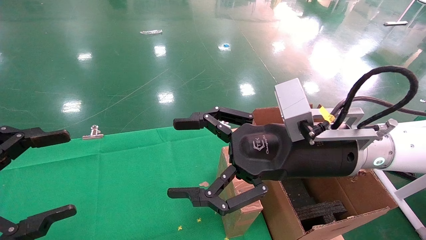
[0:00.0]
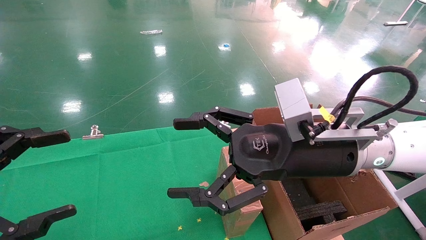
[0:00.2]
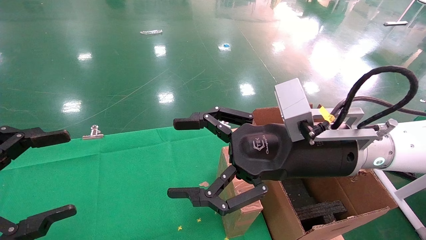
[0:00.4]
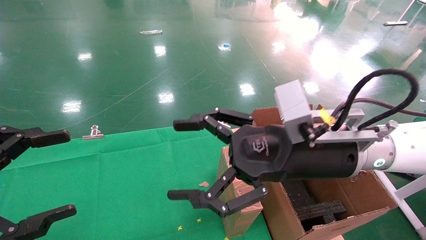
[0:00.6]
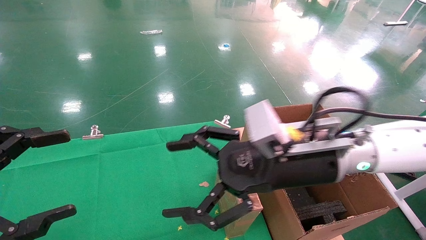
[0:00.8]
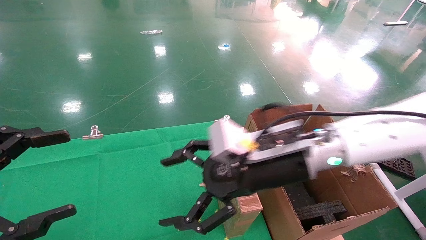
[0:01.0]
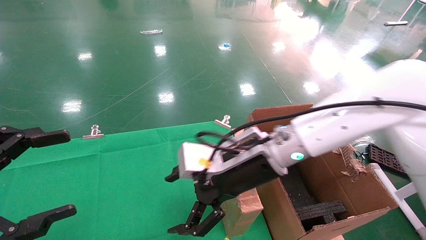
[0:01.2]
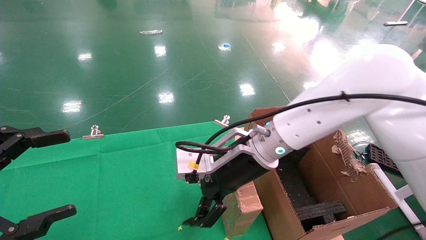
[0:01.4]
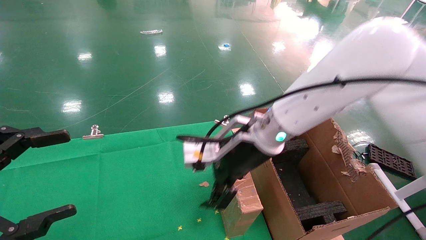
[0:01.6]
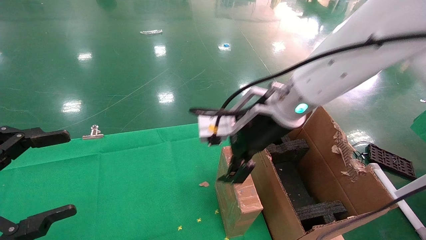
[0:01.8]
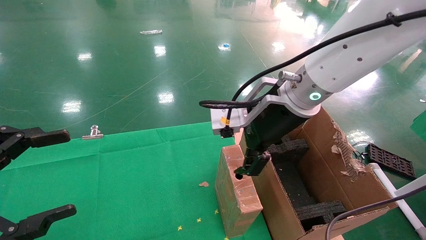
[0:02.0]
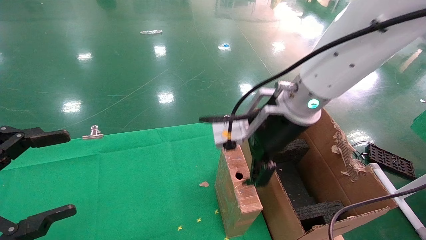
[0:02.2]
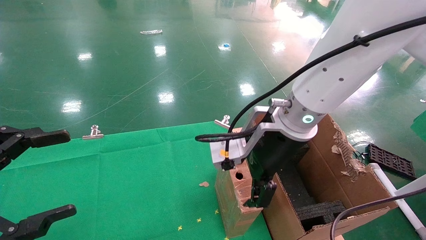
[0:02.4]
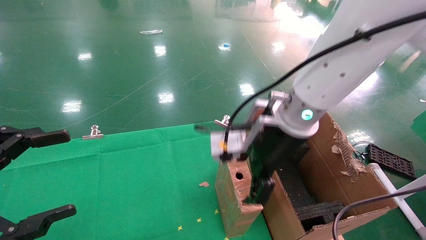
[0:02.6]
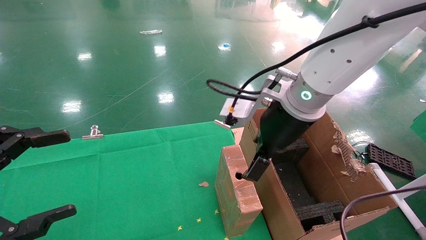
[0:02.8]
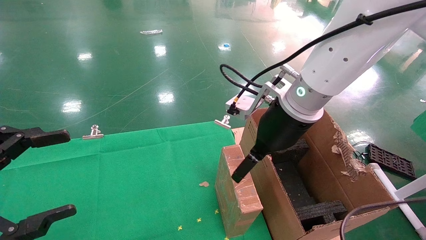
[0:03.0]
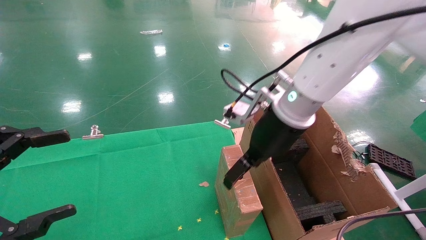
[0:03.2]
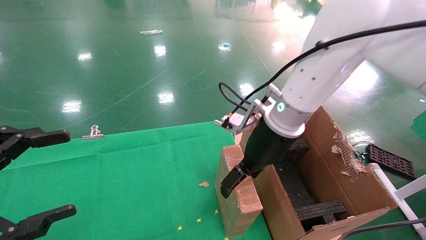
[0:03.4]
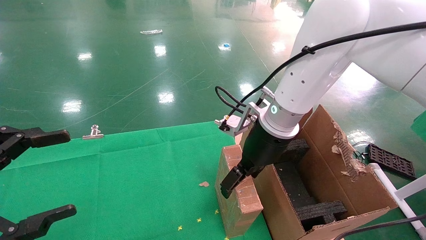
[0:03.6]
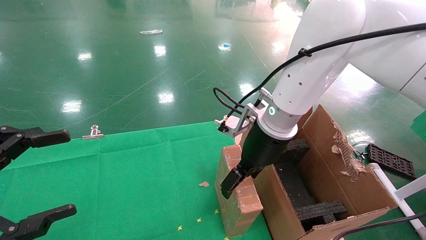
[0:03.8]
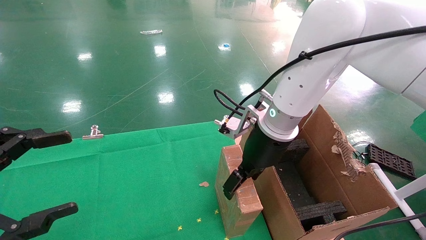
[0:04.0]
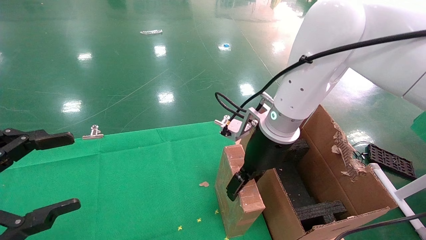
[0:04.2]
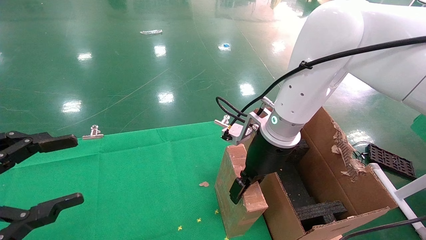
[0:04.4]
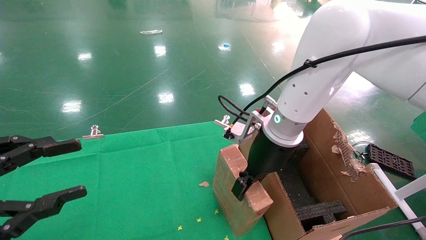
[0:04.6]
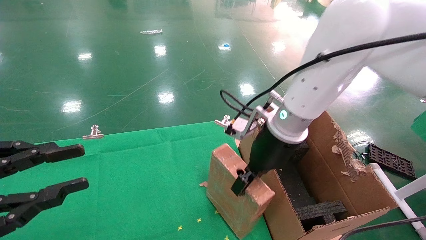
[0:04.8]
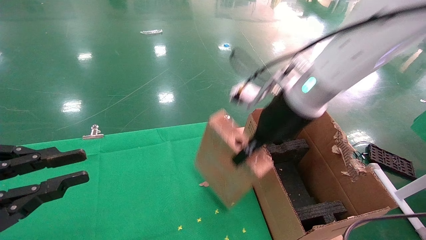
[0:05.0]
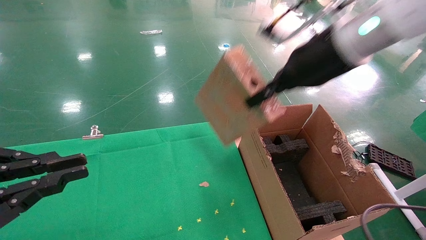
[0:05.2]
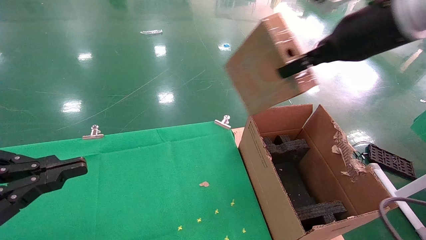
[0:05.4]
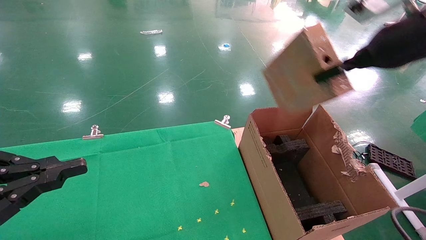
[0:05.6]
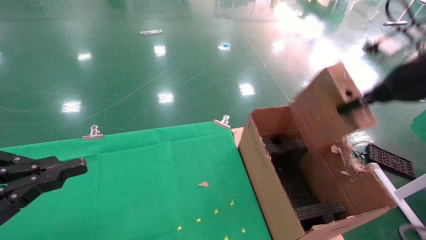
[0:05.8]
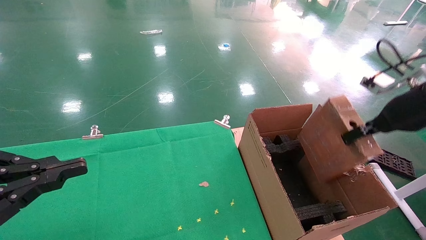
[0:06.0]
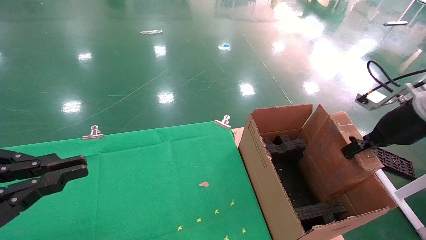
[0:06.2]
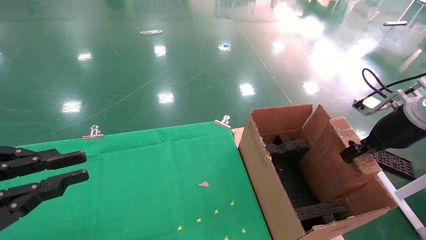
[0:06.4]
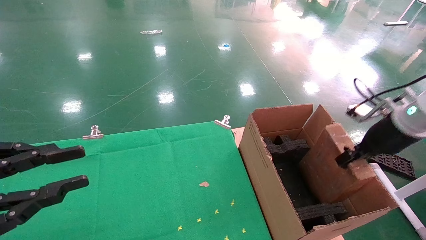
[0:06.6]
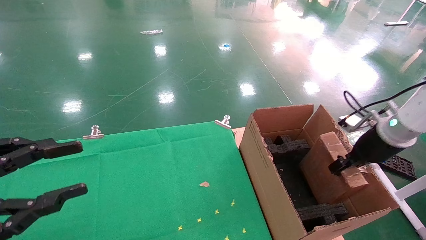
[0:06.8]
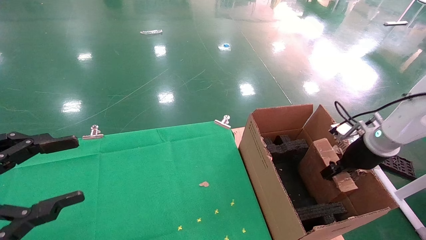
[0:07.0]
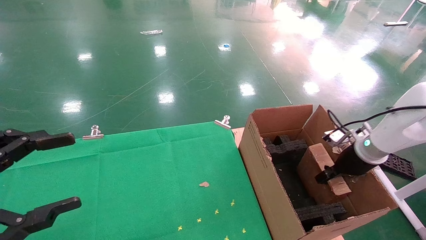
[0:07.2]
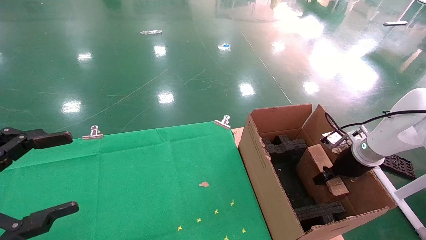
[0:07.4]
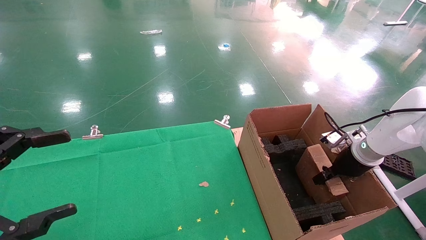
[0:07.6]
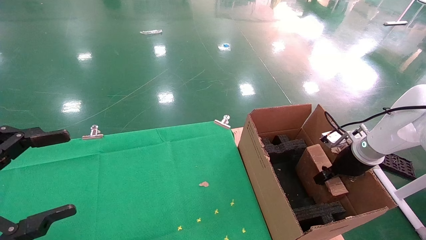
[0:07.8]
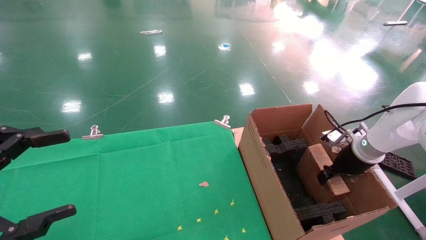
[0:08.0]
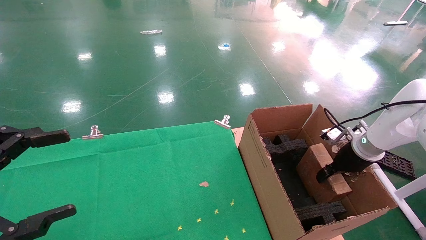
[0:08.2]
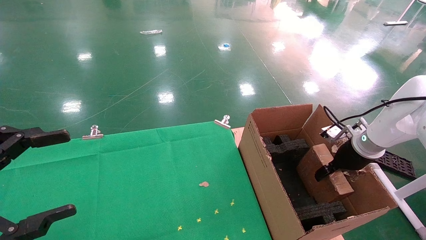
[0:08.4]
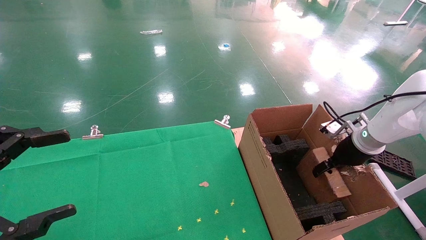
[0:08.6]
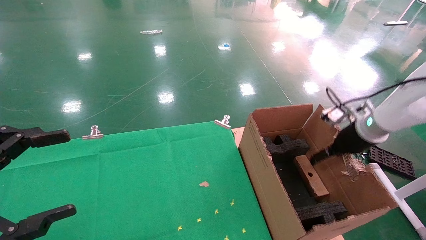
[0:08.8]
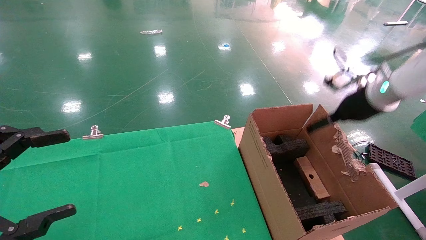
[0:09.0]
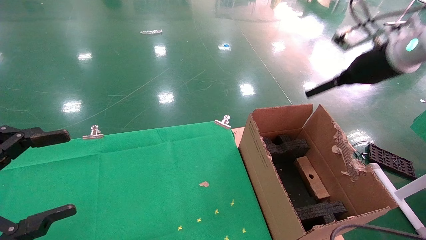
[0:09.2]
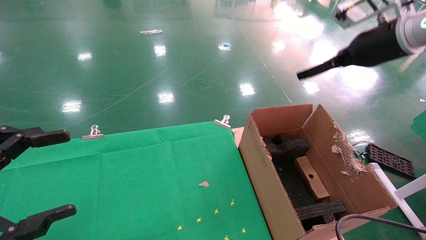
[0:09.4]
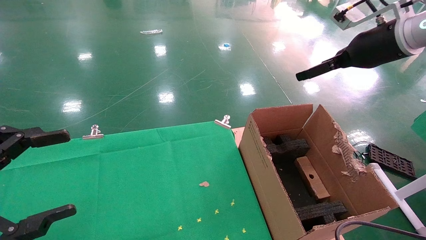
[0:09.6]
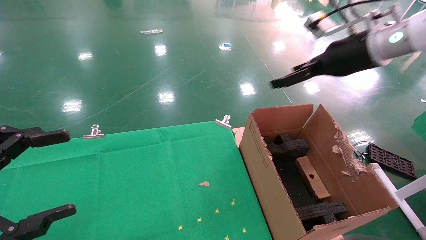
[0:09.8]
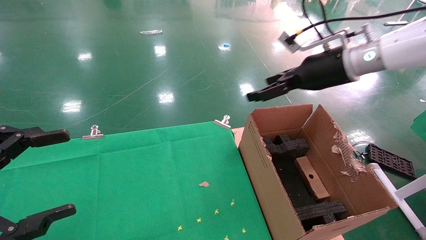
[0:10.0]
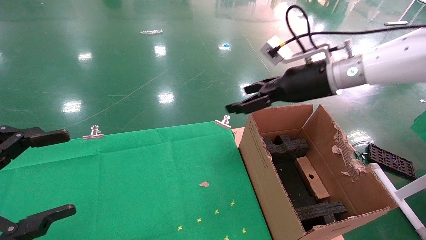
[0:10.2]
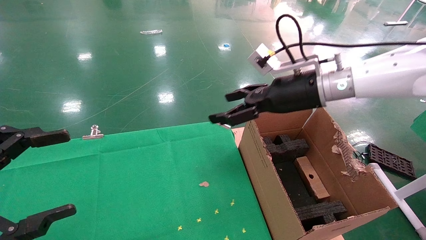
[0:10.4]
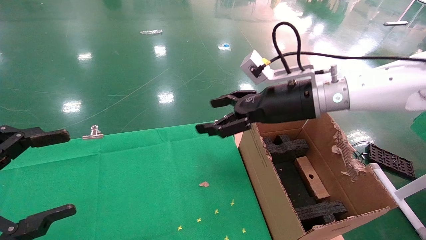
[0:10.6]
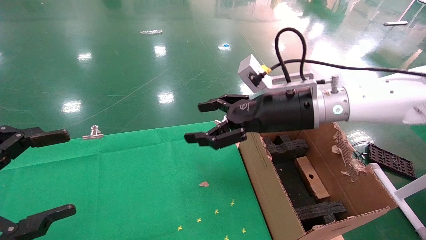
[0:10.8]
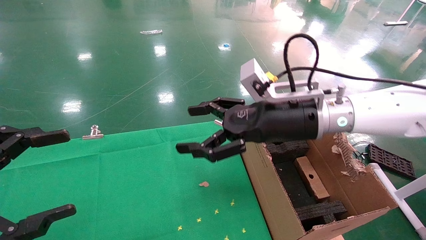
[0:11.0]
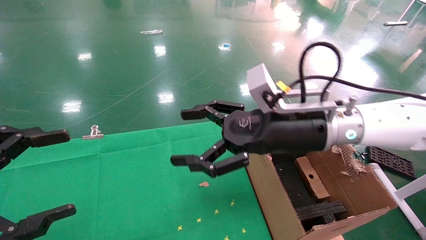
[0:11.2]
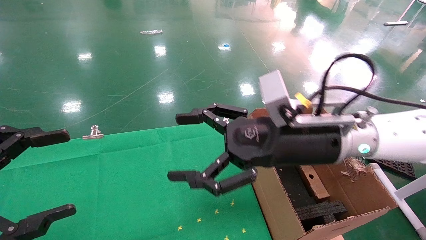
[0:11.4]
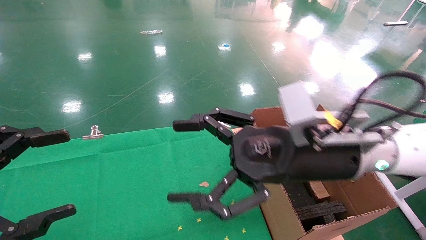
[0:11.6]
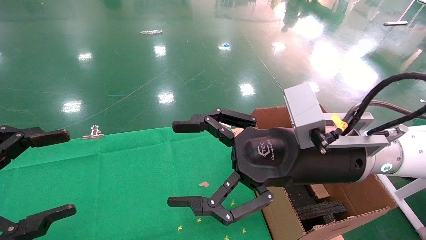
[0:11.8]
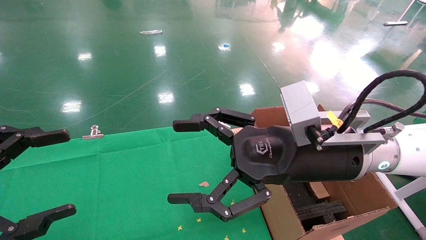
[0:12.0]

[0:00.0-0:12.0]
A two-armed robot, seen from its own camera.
Task of the whole recording: using a robotic arm to pick up a cardboard box and palace it the carton.
Step, 0:00.8 to 0:04.6: Pick up the mouse and the power cord paper box.
Step, 0:04.8 to 0:09.2: Place the mouse and the power cord paper box into the container.
0:00.0 to 0:01.6: The right gripper travels forward and to the left by roughly 10 cm.
0:03.0 to 0:04.4: The right gripper moves downward, approximately 5 cm, and closes its fingers.
0:04.4 to 0:06.0: The left gripper closes, while the right gripper shifts some 25 cm to the right, and closes up.
0:06.0 to 0:07.6: The left gripper opens; the right gripper is displaced downward and forward by approximately 20 cm.
0:07.6 to 0:09.0: The right gripper travels upward by about 15 cm, and opens.
0:09.0 to 0:10.4: The right gripper is displaced to the left by approximately 15 cm.
0:10.4 to 0:12.0: The right gripper shifts about 15 cm backward and to the left.

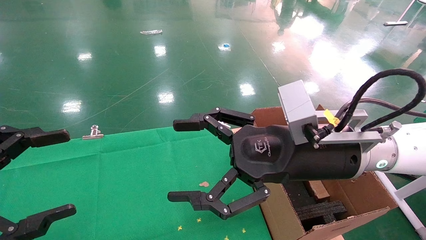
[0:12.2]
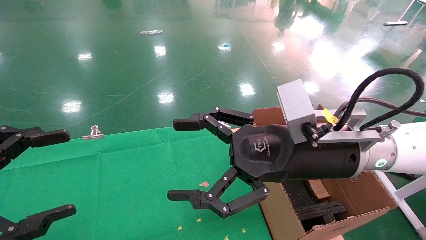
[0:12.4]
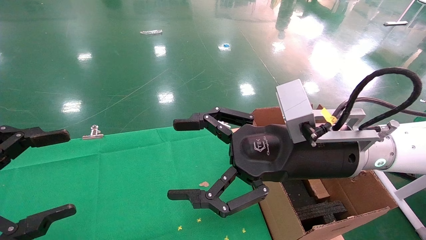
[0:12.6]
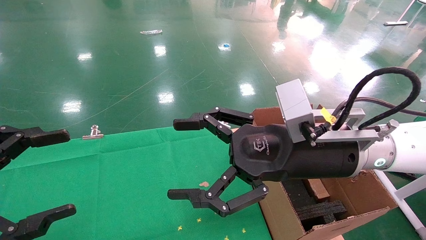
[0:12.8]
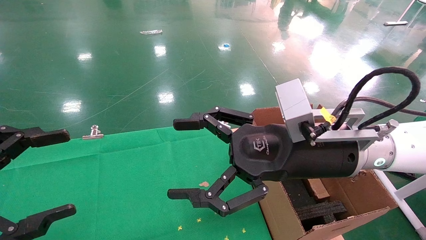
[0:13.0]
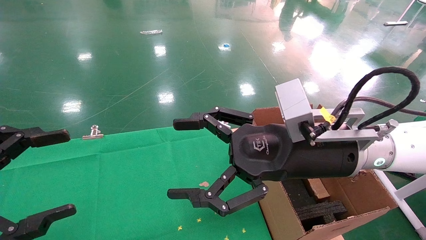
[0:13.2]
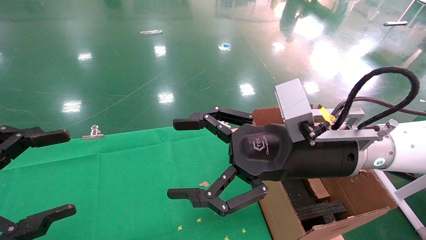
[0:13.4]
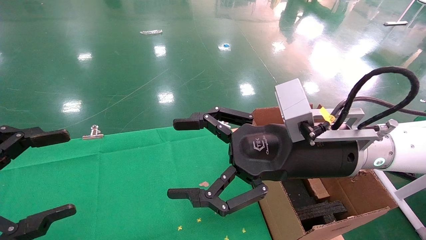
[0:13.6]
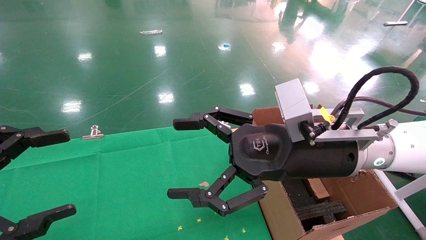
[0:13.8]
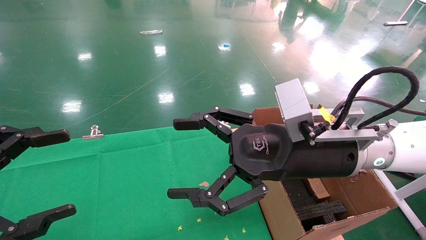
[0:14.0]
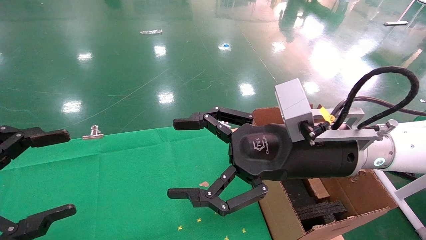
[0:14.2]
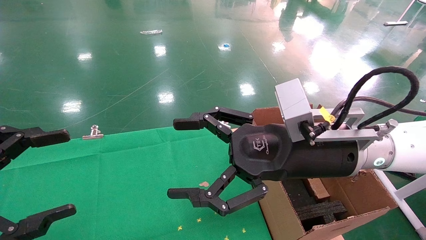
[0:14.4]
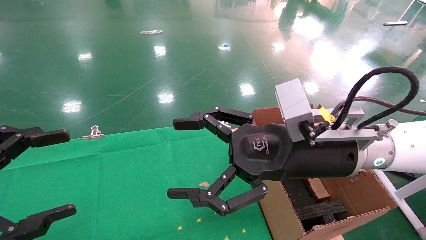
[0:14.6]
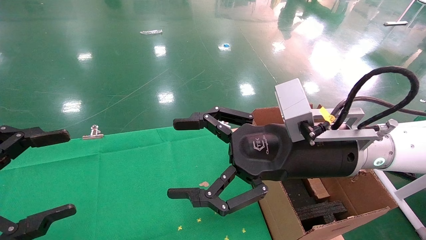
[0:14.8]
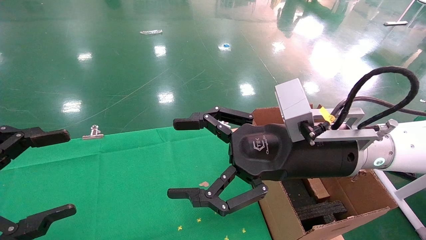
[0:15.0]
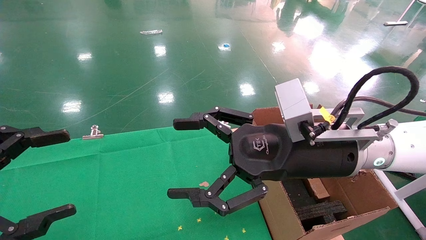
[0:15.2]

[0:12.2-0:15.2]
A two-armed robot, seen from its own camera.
Task of the whole recording: using a robotic arm to pick up a cardboard box and palace it the carton.
0:12.2 to 0:15.2: Both grippers stay about where they are.
